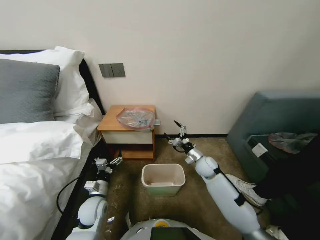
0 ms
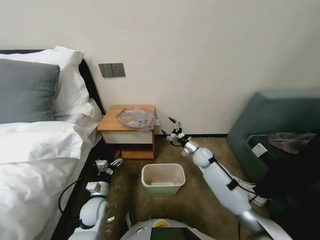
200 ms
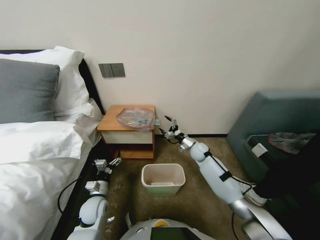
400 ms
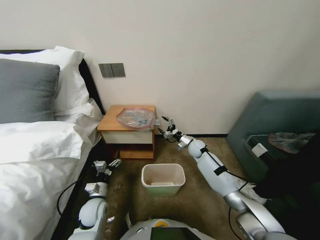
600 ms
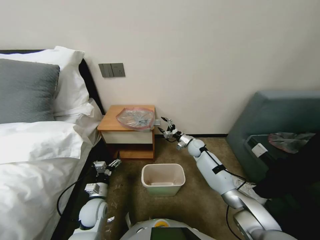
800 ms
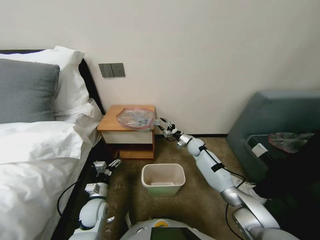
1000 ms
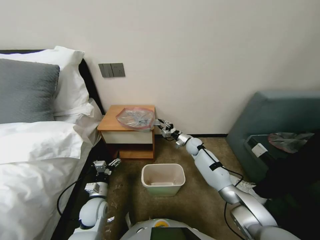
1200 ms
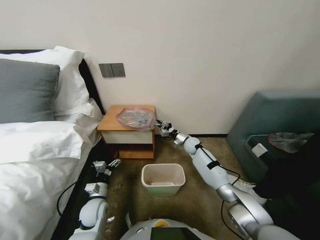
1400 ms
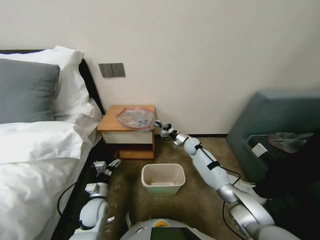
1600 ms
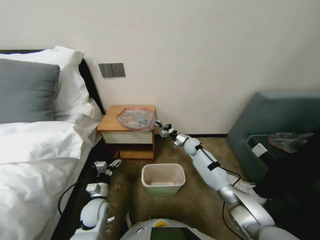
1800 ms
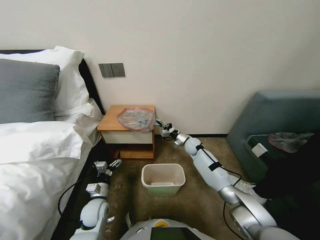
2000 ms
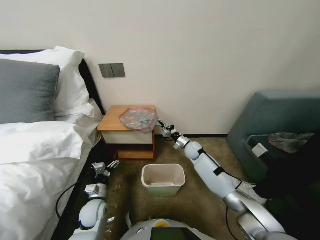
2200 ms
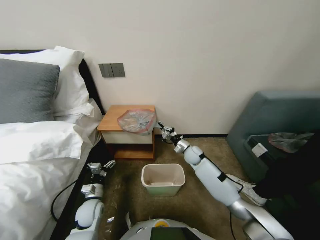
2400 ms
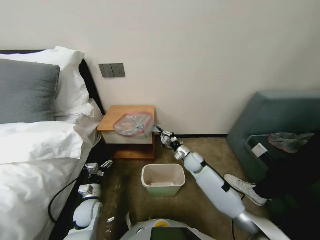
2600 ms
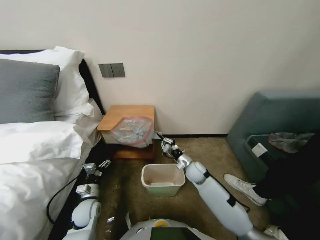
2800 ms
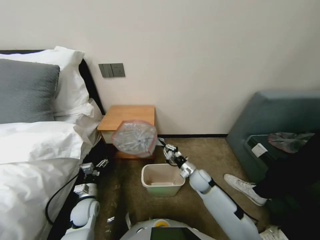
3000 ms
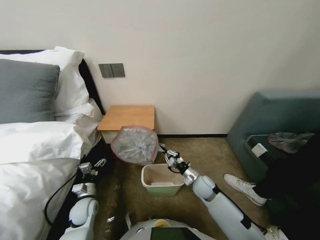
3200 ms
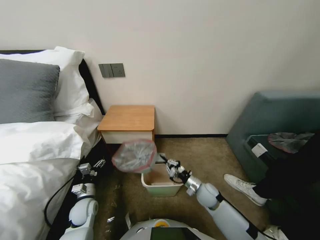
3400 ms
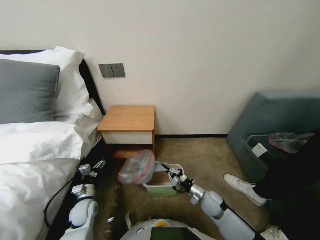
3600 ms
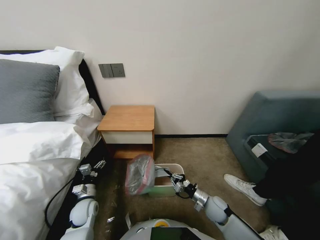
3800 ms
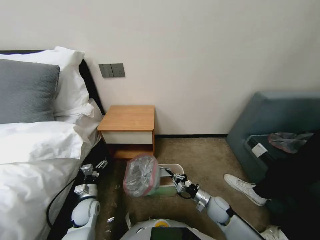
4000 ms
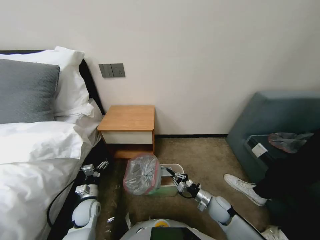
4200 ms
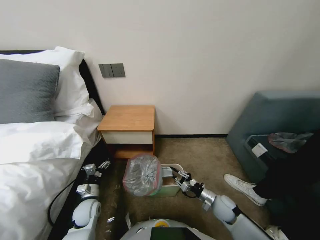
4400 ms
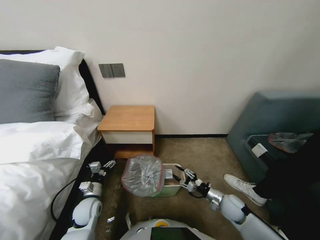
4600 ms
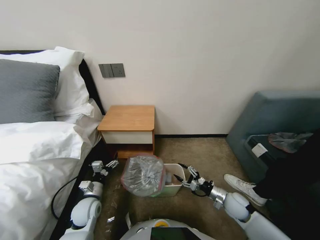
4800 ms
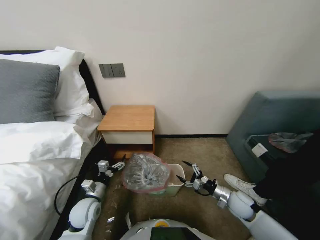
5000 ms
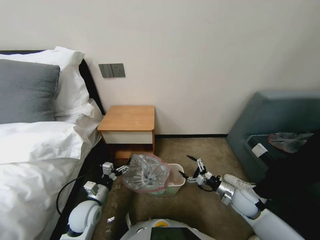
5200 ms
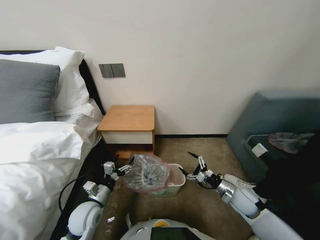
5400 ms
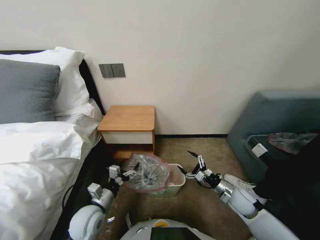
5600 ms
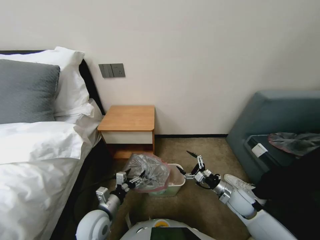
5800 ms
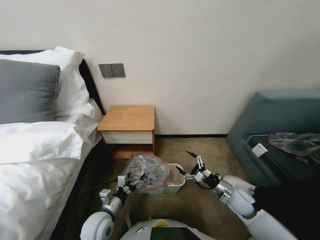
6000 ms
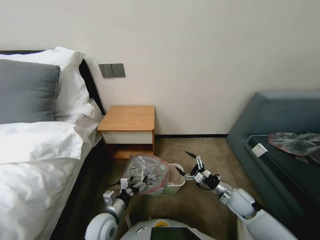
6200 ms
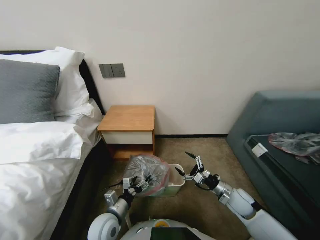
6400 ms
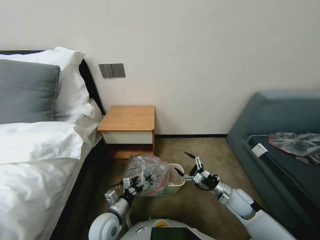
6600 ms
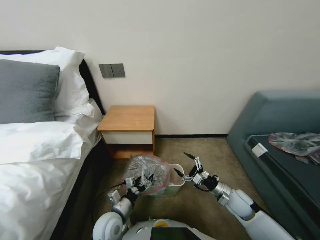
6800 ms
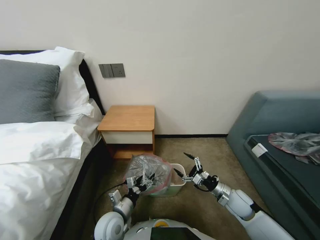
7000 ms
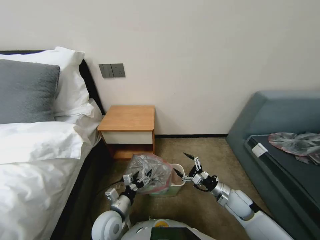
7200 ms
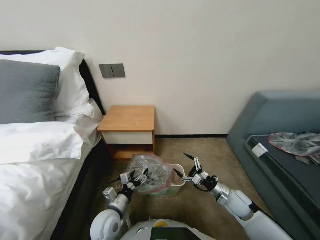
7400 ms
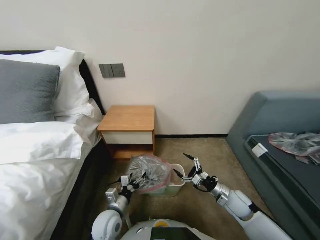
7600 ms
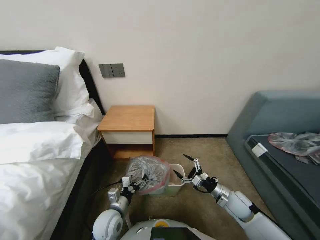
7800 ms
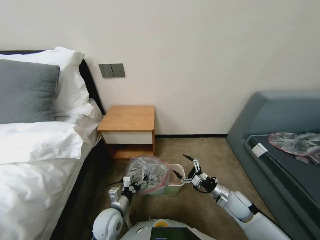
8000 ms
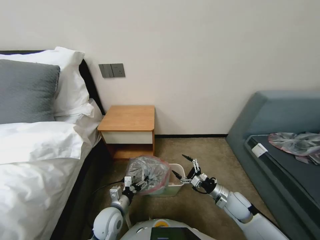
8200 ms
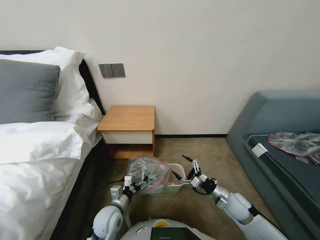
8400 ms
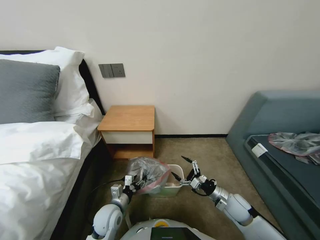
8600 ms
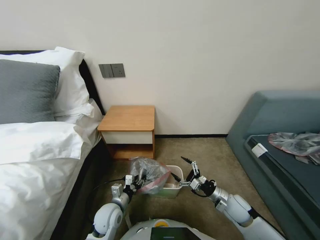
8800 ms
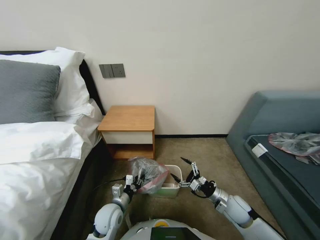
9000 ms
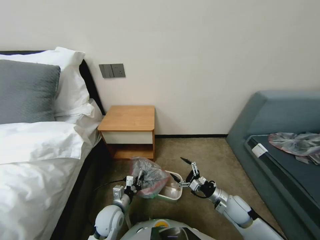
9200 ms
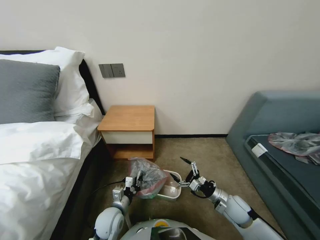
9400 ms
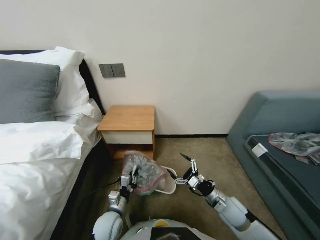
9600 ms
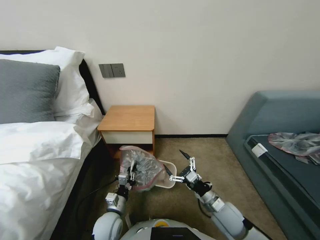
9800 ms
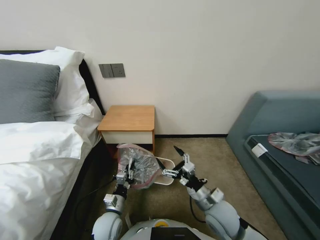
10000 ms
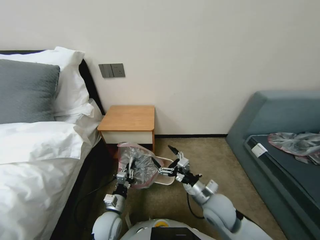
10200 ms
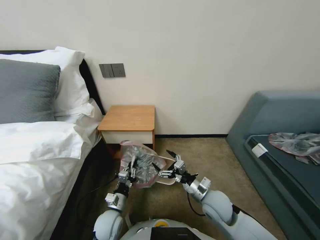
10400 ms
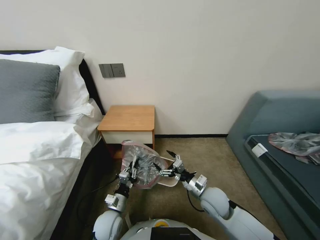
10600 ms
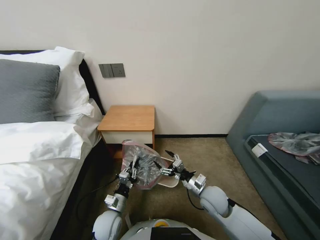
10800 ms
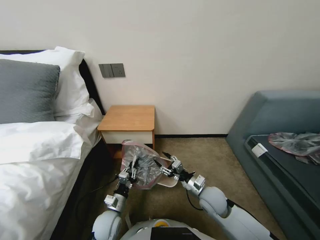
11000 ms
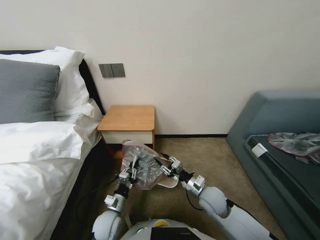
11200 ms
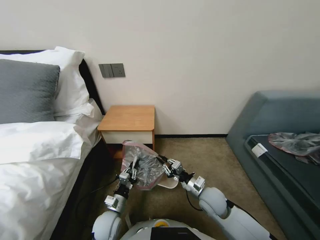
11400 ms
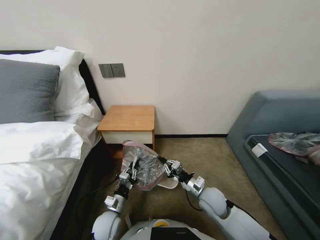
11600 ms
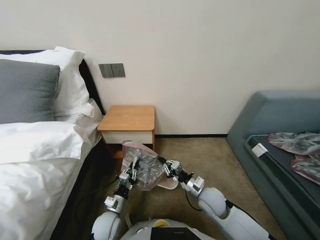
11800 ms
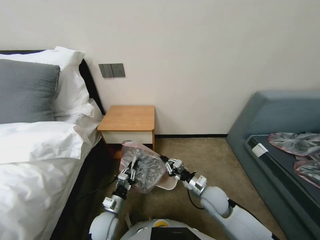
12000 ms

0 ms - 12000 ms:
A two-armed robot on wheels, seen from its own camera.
Task of the whole recording: Pick up the garbage bag from the table and place it over the trash can.
0 ms - 1600 ms: The right gripper shifts about 15 cm forward, and closes up.
1600 ms - 3000 ms: The right gripper heads backward, covering approximately 20 cm.
3000 ms - 4400 ms: The right gripper travels backward, to the right and downward by about 15 cm.
4400 ms - 6000 ms: The right gripper moves upward and to the right, roughly 10 cm, and opens its fingers. The left gripper goes some 15 cm to the right, upward and backward.
6000 ms - 7600 ms: The grippers move only a little.
7600 ms - 9000 ms: The left gripper closes.
9000 ms - 10400 ms: The right gripper heads to the left and upward, covering about 15 cm.
10400 ms - 12000 ms: The right gripper closes its fingers.

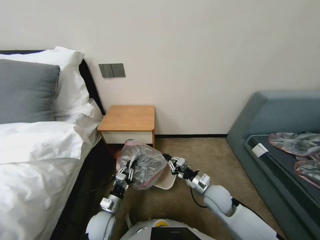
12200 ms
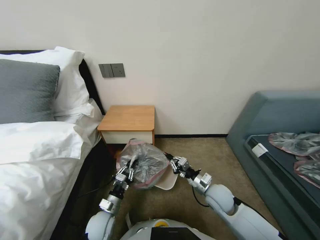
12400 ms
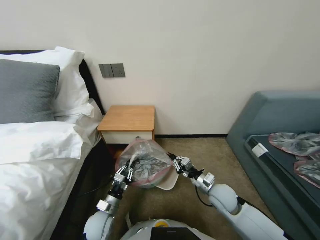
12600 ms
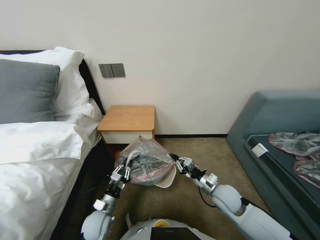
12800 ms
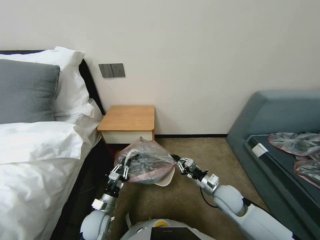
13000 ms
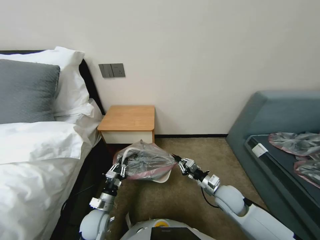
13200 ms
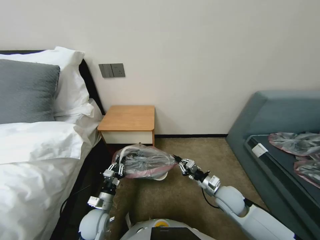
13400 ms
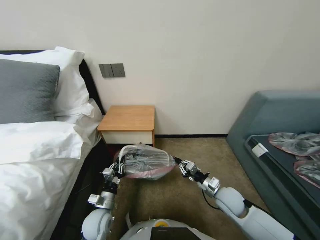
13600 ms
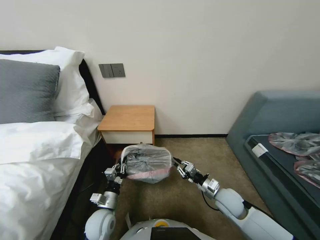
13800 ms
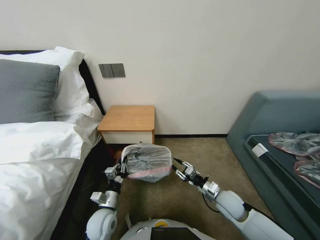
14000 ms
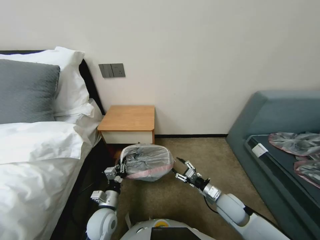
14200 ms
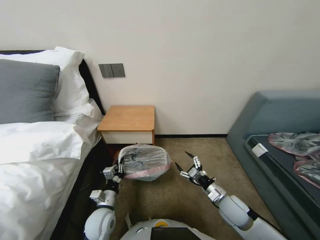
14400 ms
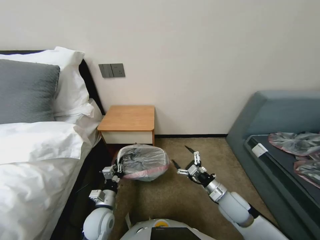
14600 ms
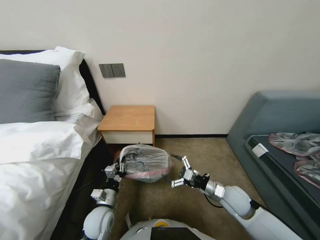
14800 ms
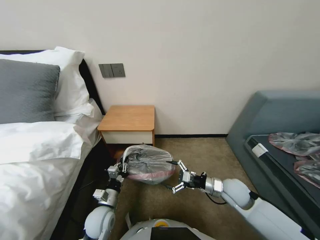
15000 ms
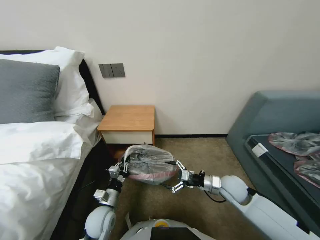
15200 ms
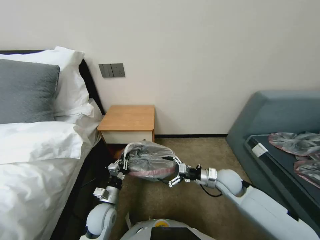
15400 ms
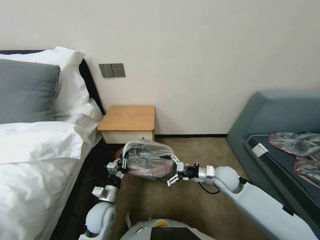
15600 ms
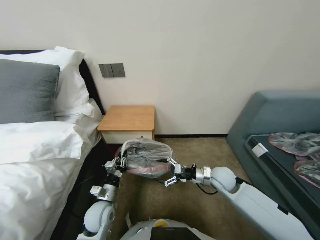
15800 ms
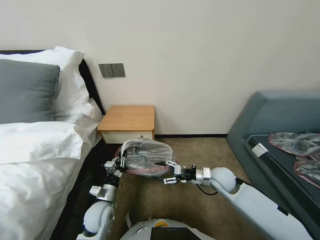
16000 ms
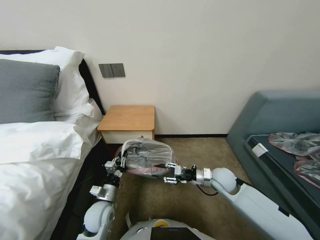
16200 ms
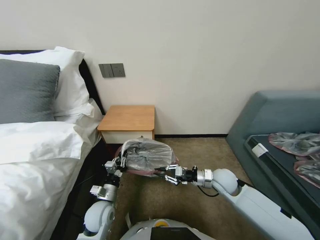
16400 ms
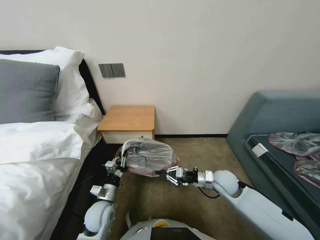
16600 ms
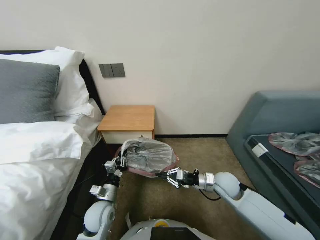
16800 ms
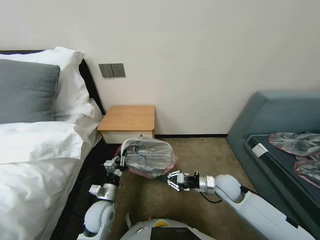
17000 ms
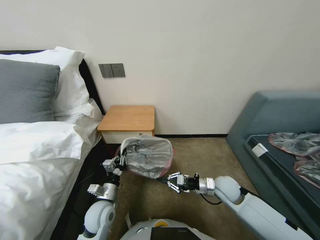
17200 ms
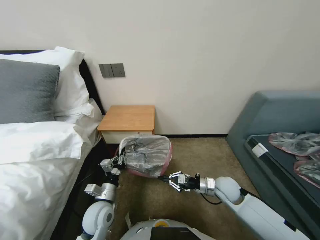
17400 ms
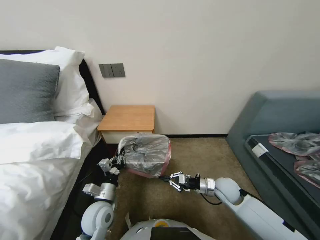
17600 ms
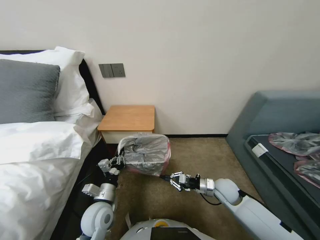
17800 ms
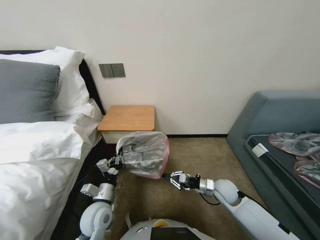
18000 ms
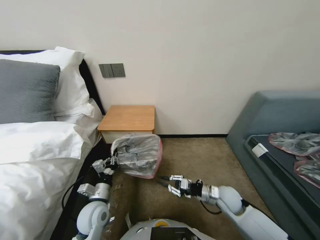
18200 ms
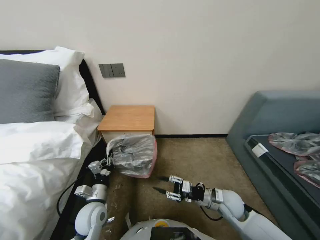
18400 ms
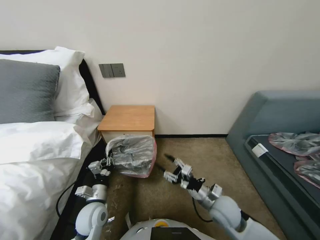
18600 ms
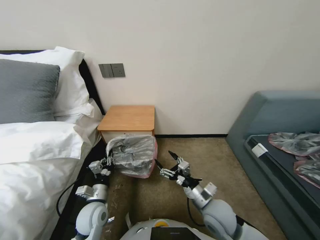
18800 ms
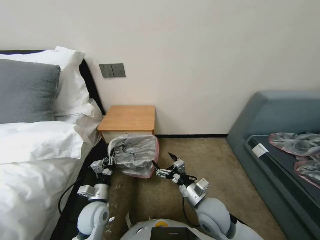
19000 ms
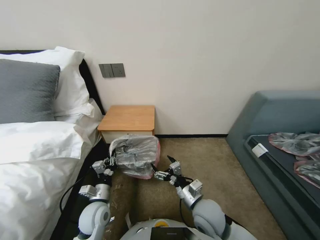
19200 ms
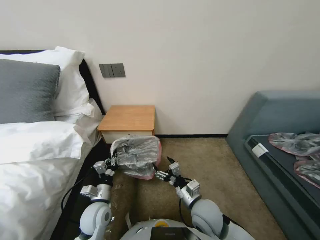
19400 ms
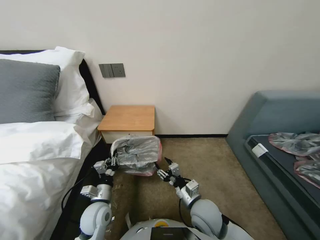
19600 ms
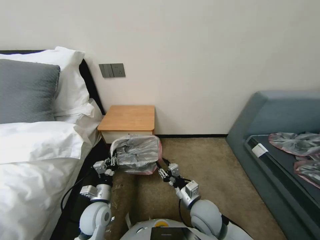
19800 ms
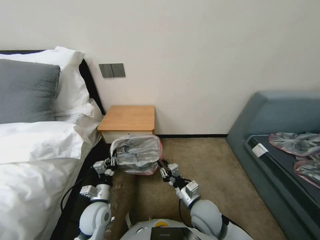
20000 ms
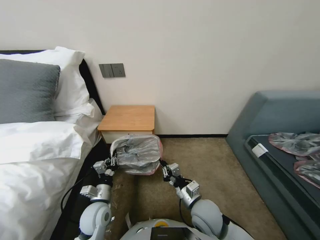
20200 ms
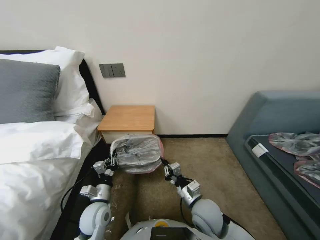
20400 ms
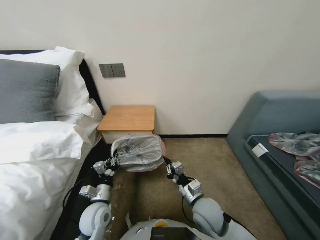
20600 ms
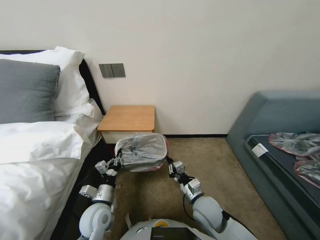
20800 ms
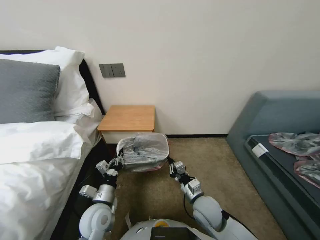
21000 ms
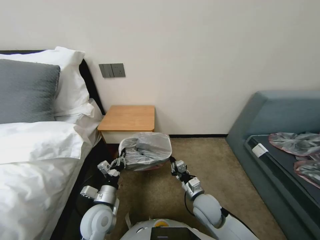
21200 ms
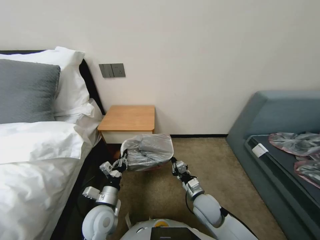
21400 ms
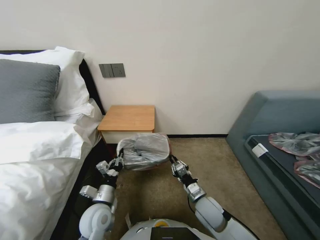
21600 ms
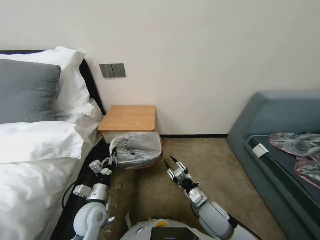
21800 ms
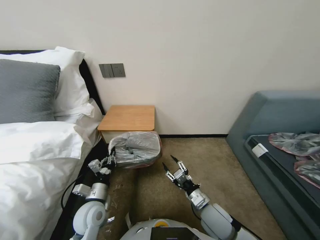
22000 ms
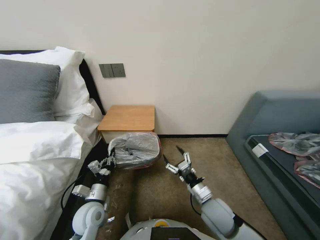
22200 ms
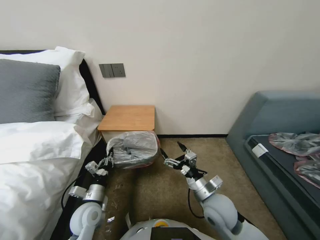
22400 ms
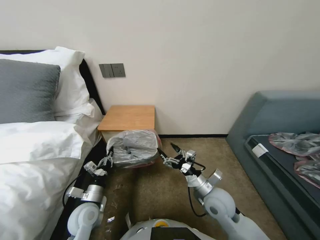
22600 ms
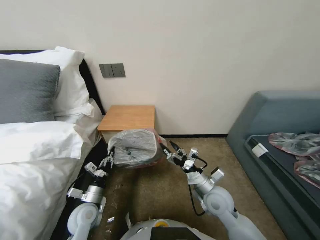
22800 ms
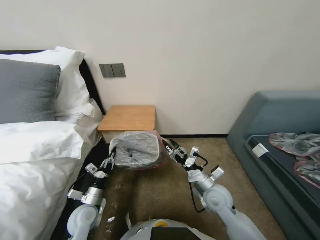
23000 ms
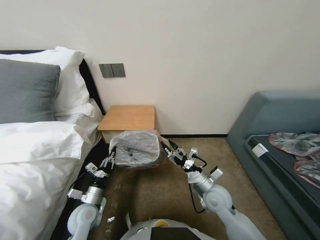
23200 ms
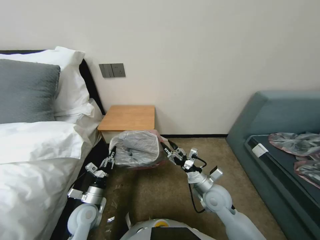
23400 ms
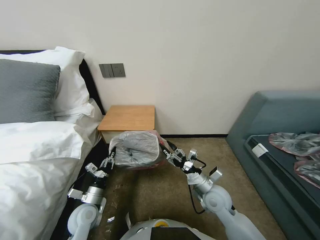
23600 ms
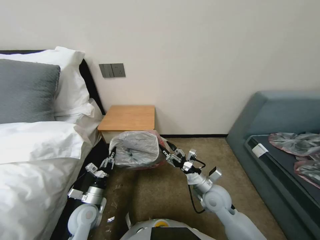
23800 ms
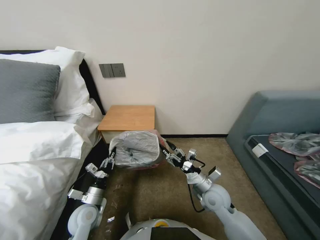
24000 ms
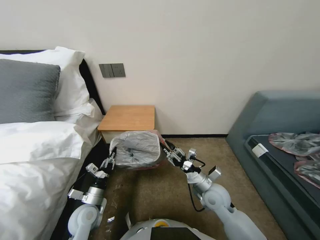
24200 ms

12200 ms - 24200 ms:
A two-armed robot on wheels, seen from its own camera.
Task of the whole recording: Pick up the garbage bag from the table and place it over the trash can.
12200 ms - 13800 ms: The right gripper travels to the right by approximately 5 cm.
13800 ms - 15200 ms: The right gripper changes place by about 5 cm, and opens its fingers.
15200 ms - 16600 ms: The right gripper closes up.
16600 ms - 18200 ms: The right gripper moves downward, some 5 cm.
18200 ms - 19800 ms: The right gripper is displaced to the left, backward and upward by roughly 15 cm, and opens.
19800 ms - 21200 ms: The right gripper closes up.
21200 ms - 22600 ms: The right gripper travels upward by roughly 5 cm, and opens up; the left gripper goes approximately 5 cm to the left.
22600 ms - 24200 ms: The right gripper moves some 5 cm.
